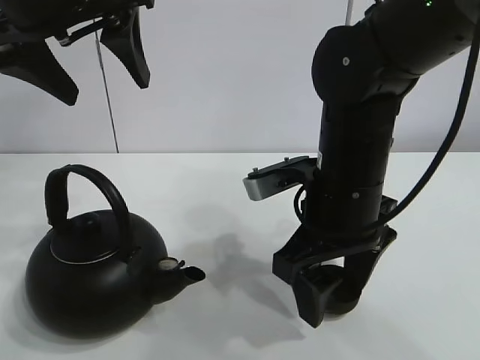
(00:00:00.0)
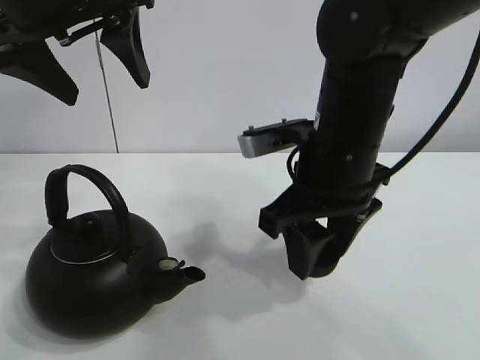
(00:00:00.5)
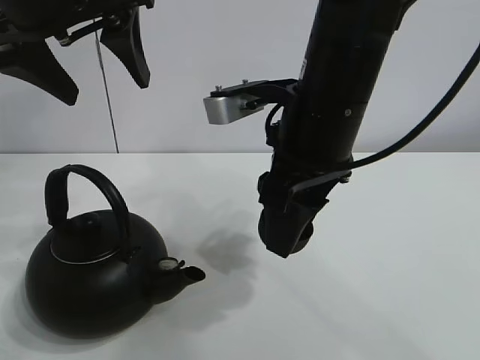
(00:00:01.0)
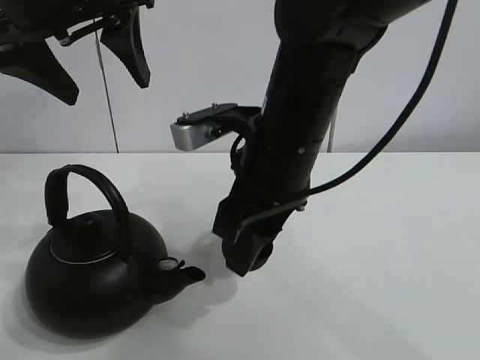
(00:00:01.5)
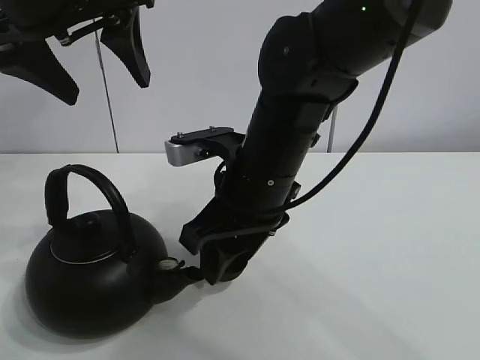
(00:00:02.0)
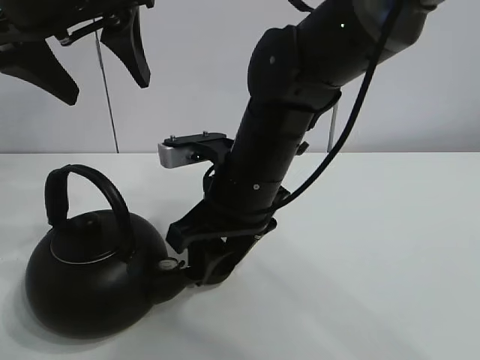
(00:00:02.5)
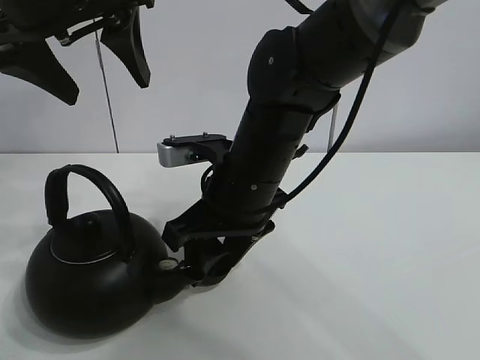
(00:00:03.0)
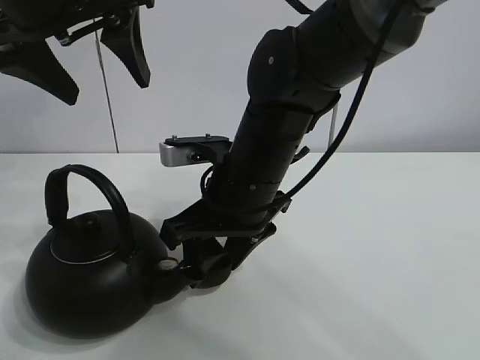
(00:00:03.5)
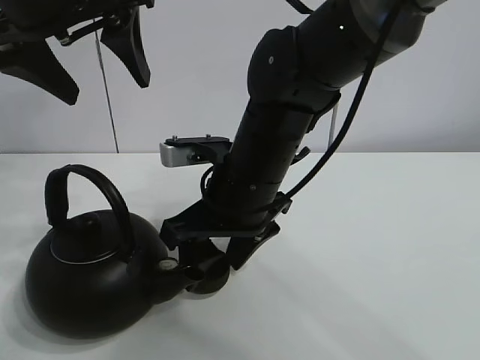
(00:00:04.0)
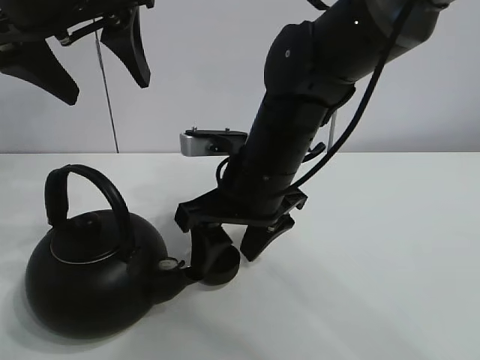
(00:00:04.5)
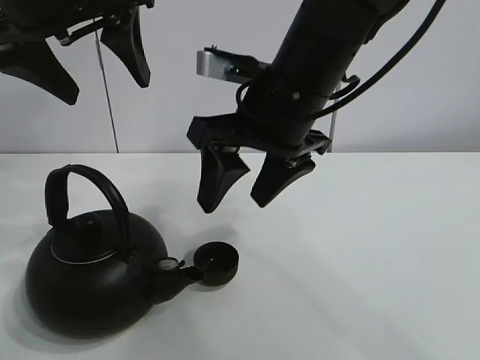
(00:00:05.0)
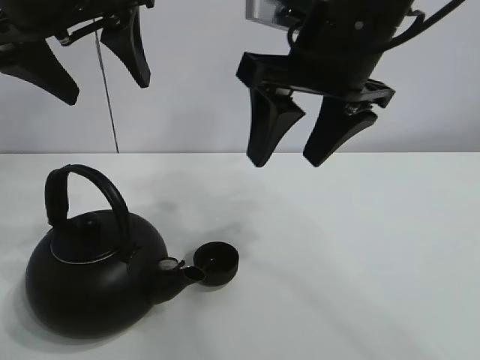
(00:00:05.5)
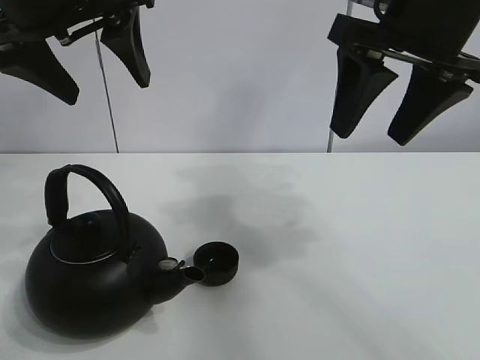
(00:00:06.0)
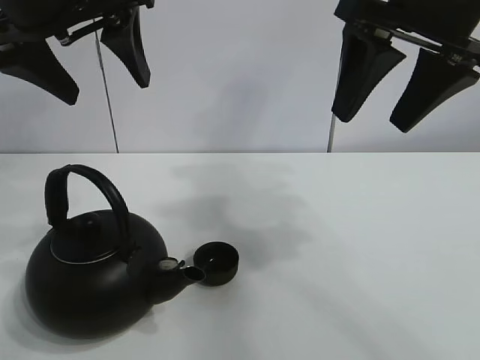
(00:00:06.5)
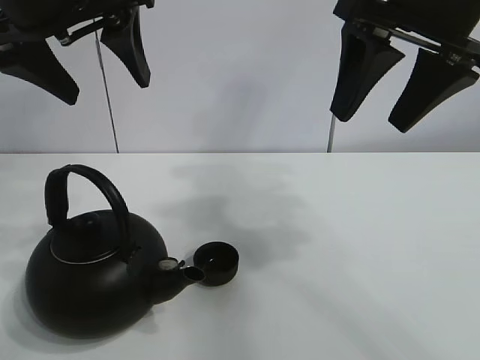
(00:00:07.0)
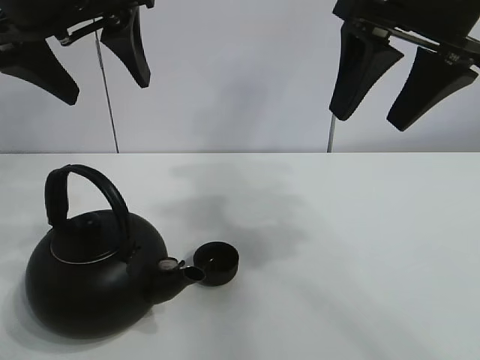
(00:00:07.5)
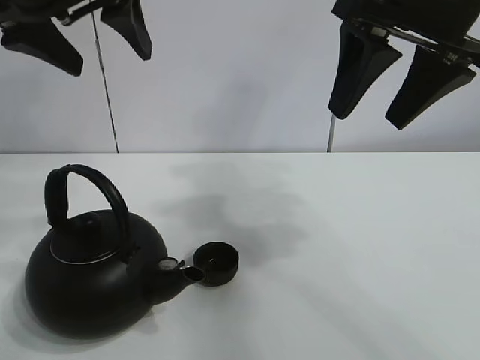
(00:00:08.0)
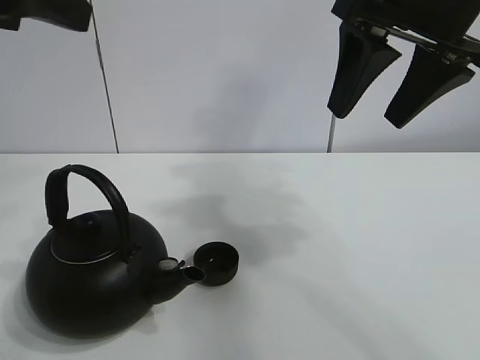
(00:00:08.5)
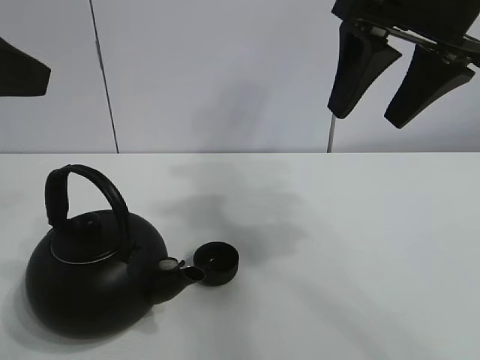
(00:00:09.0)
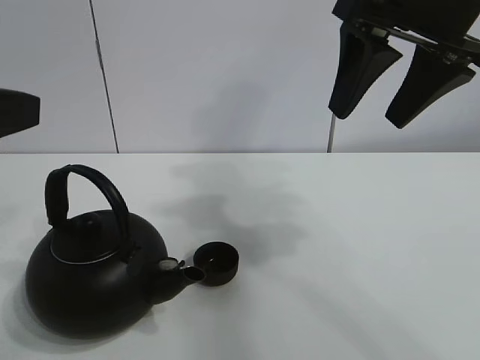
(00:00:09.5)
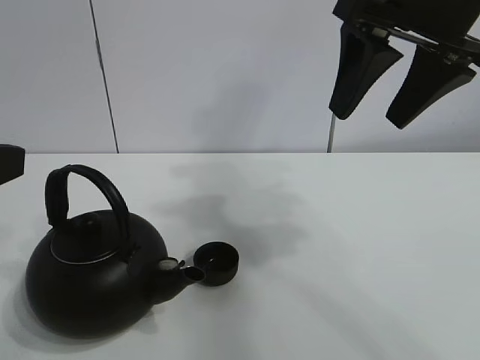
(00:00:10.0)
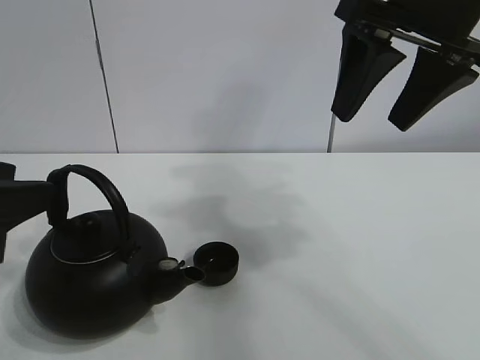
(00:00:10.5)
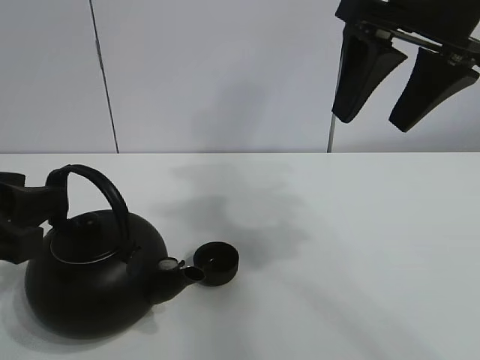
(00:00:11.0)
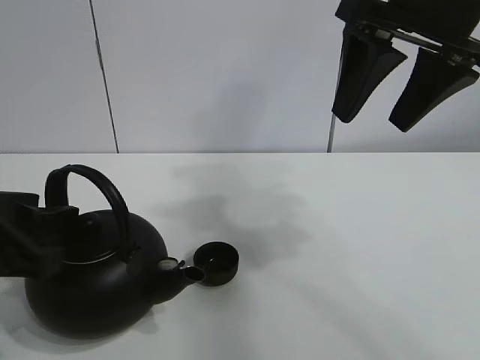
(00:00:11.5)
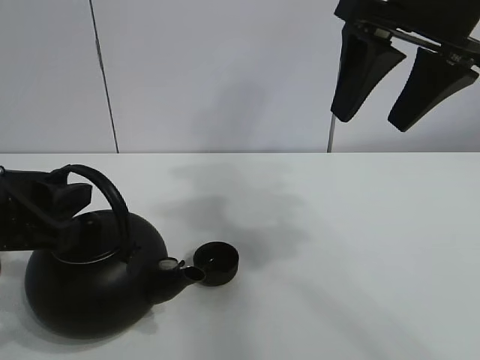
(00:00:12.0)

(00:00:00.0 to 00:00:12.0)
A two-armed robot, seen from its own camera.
Task of the whole recording: pour tea into the teacup.
Step, 00:00:00.5 - 00:00:04.0: Place the teacup in the center of view with the right gripper.
00:00:00.0 - 00:00:02.0: The right gripper heads to the left, covering approximately 5 cm, and closes its fingers.
00:00:02.0 - 00:00:04.0: There are only small adjustments of the grippers.
00:00:04.0 - 00:00:06.0: The right gripper shifts approximately 20 cm upward and to the right.
00:00:06.0 - 00:00:08.0: There are only small adjustments of the grippers.
00:00:08.0 - 00:00:10.0: The left gripper heads backward, downward and to the left, covering some 20 cm, and closes its fingers.
00:00:10.0 - 00:00:12.0: The left gripper is displaced downward and forward by roughly 10 cm.

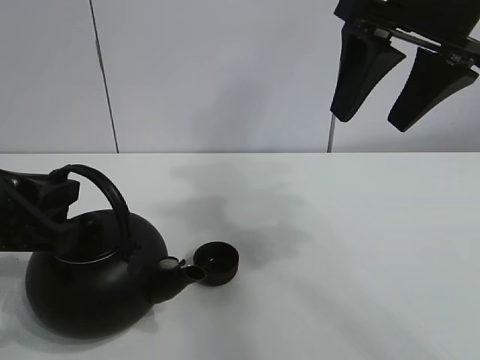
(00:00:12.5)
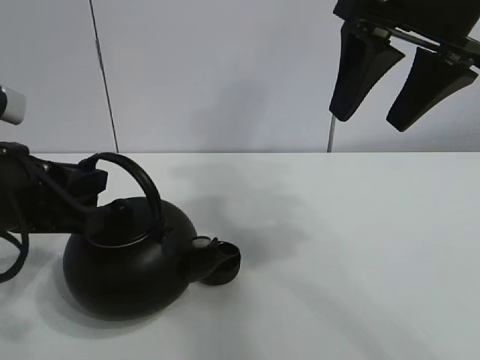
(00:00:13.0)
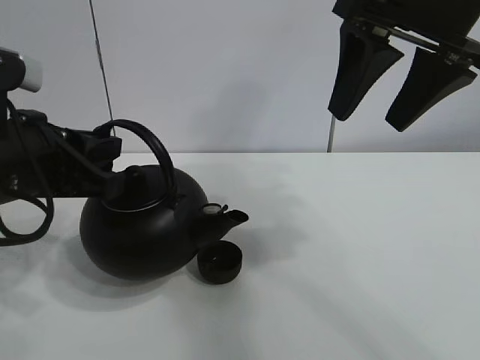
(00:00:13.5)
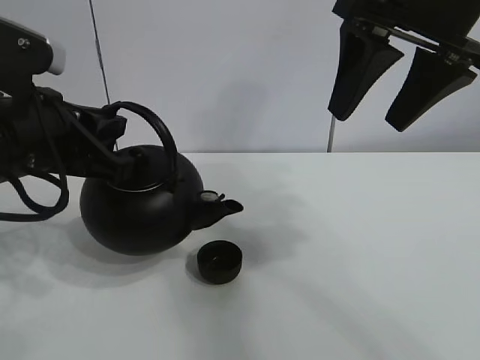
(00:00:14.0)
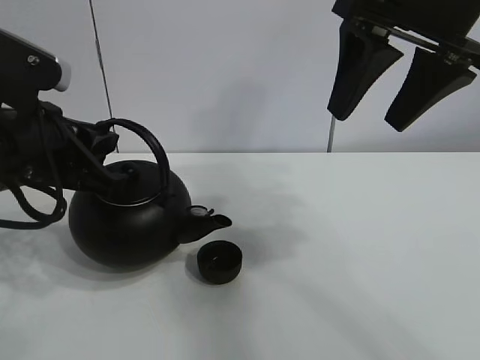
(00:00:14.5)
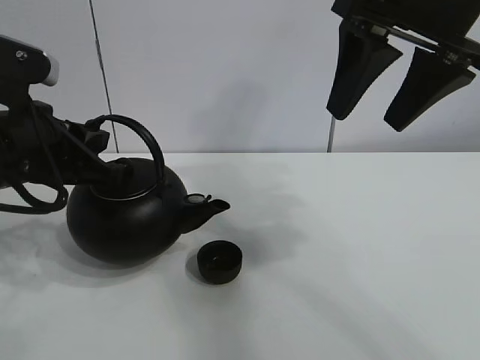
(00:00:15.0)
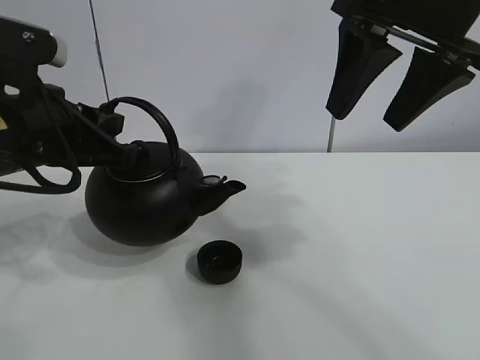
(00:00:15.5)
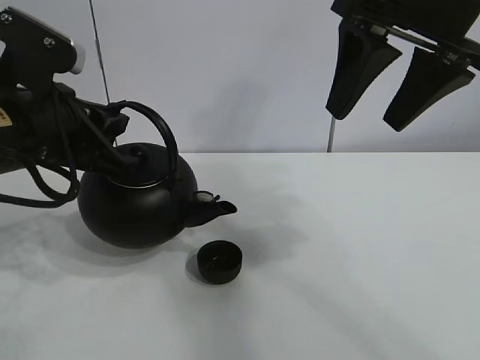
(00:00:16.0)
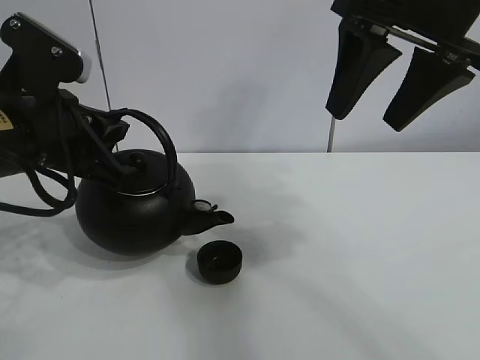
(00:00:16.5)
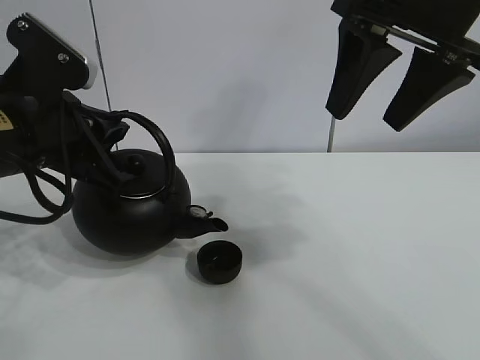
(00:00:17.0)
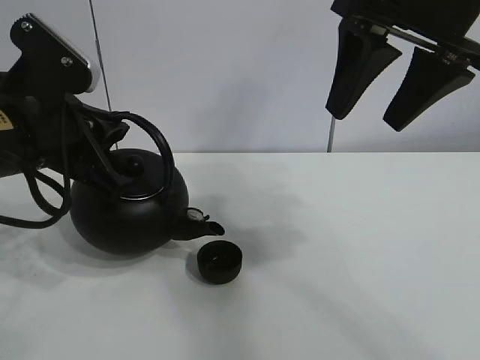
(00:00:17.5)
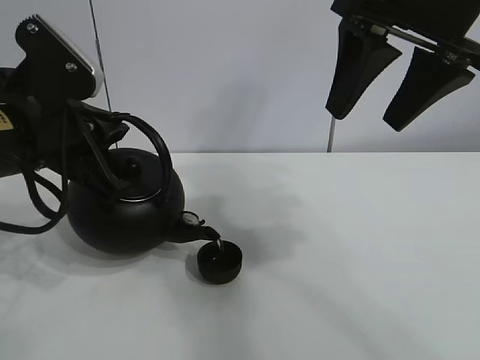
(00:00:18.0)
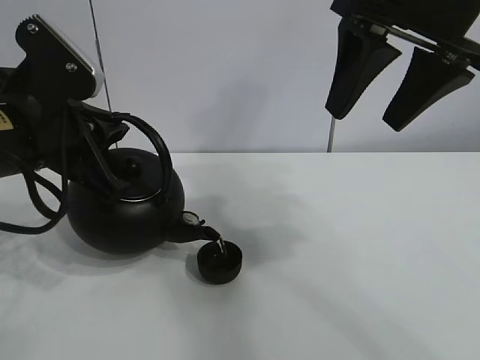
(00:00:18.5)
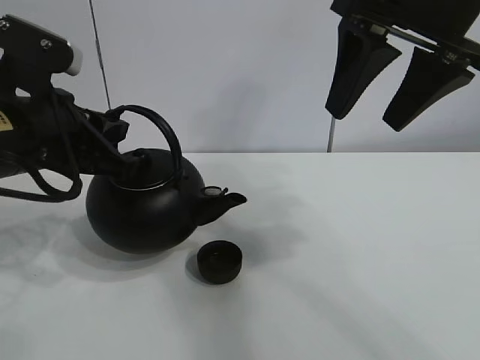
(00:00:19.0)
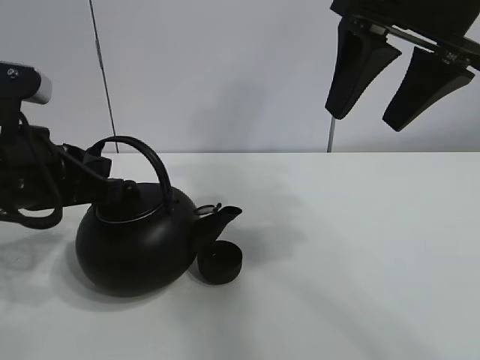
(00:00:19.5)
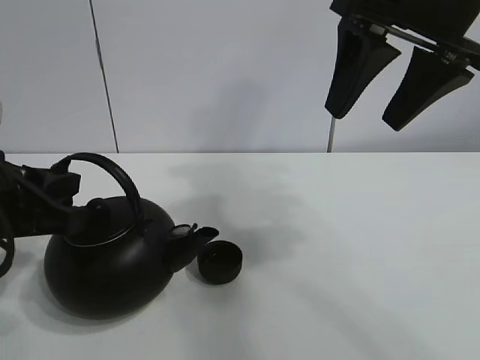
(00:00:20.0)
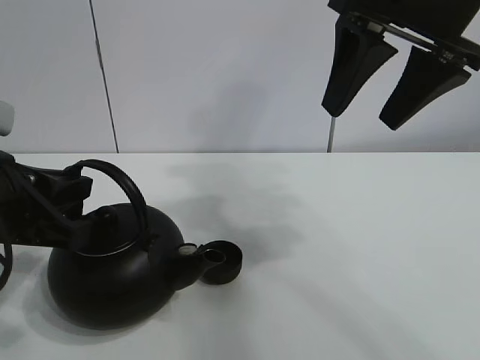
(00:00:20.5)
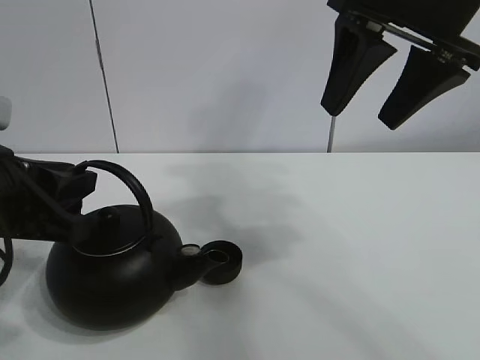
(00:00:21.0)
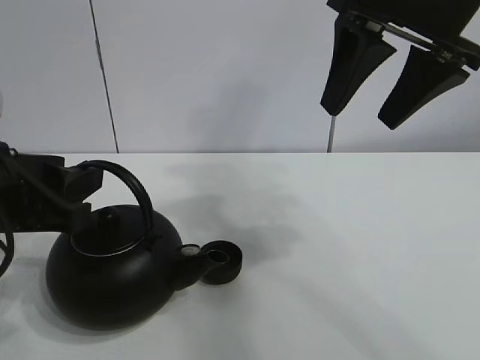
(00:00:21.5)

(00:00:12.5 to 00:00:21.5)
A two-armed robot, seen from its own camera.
Task of the whole recording: pour tea into the teacup.
Step, 00:00:13.0 - 00:00:18.5: Pour tea into the teacup with the left gripper.
00:00:12.5 - 00:00:14.5: The left gripper is displaced forward by about 5 cm.
00:00:14.5 - 00:00:17.0: The grippers move only a little.
00:00:19.5 - 00:00:21.5: The left gripper opens up.

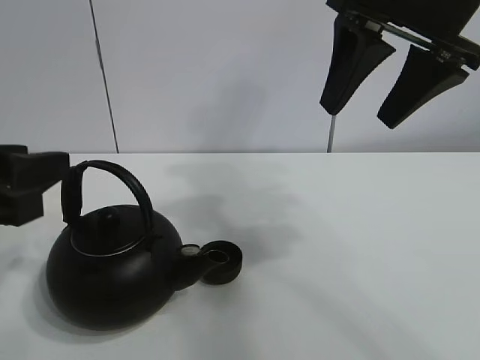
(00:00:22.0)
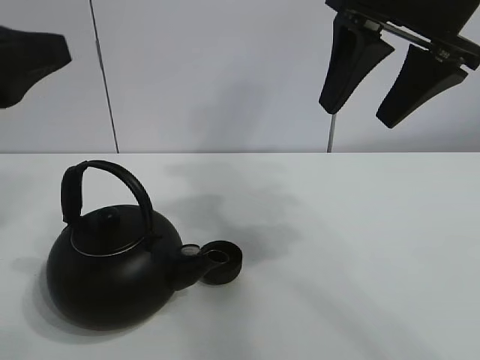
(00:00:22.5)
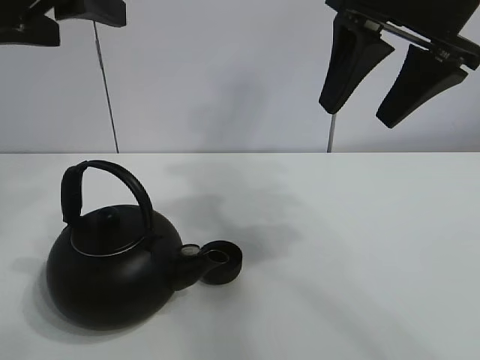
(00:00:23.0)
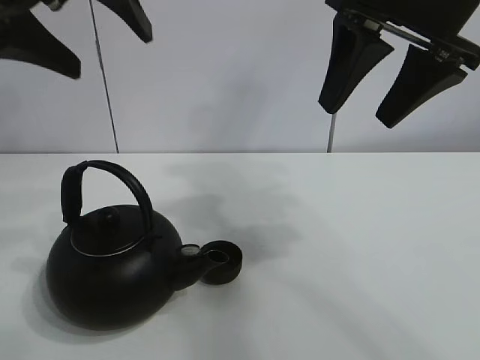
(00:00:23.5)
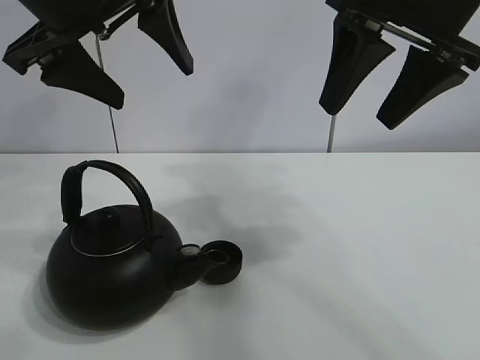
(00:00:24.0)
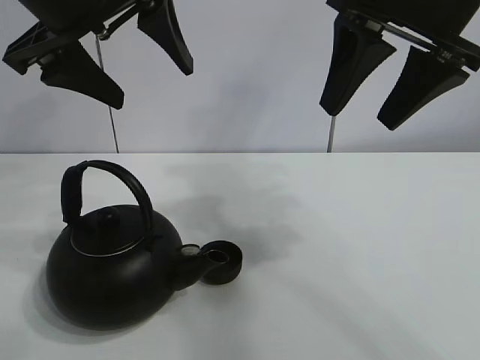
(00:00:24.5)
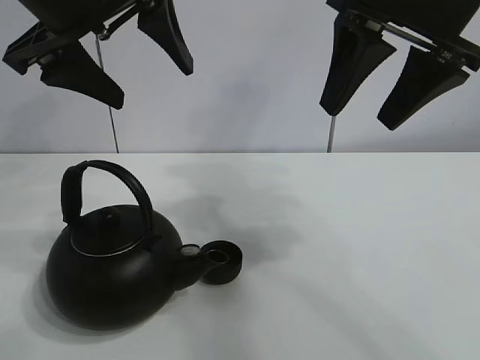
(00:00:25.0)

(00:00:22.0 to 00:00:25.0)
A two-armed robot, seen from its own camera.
Task of the whole recording: pour tea into the teacup.
00:00:22.0 - 00:00:23.5: The left gripper moves upward and forward, some 20 cm, and opens up.
00:00:23.5 - 00:00:25.0: There are only small adjustments of the grippers.

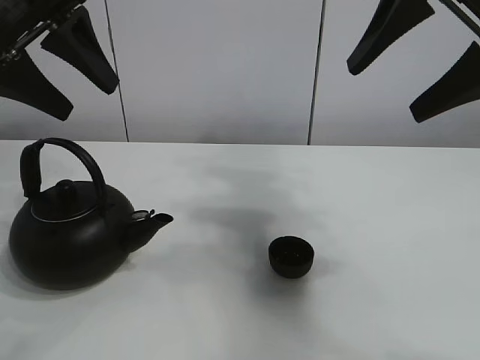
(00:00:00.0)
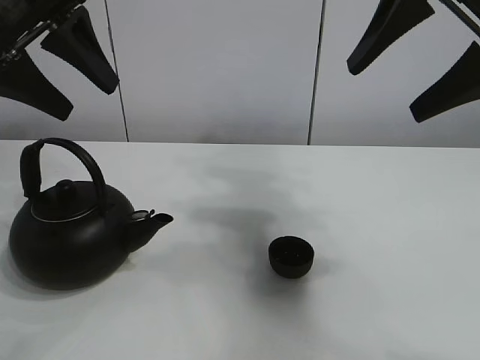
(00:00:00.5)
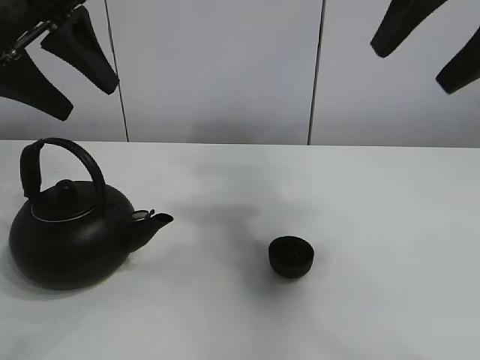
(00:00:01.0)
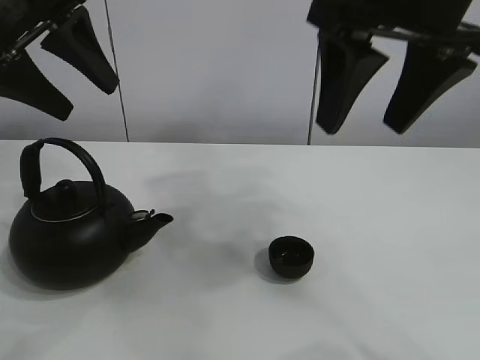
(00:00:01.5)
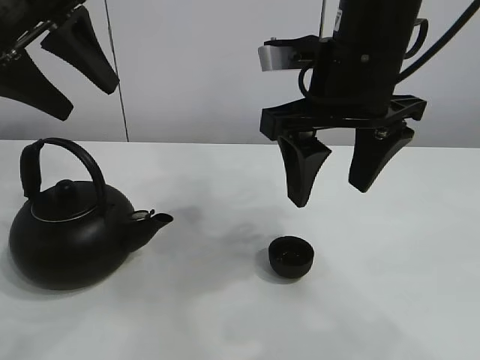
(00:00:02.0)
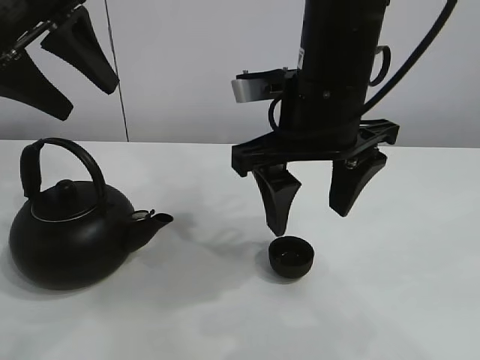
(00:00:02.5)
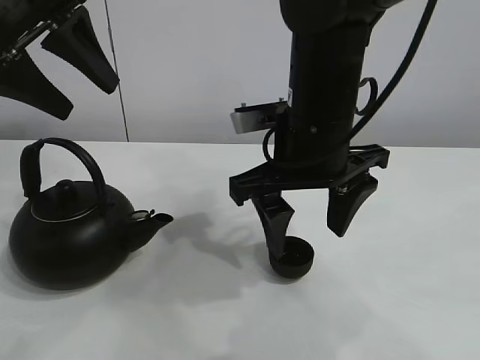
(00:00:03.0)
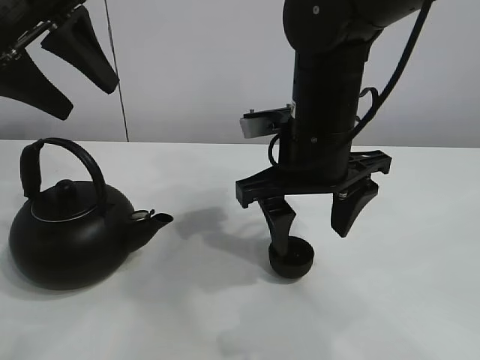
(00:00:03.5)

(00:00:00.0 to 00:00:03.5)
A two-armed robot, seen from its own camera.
Task of the whole recording: pour tea into the teacup.
00:00:02.0 - 00:00:03.5: The right gripper heads downward, covering about 5 cm.
